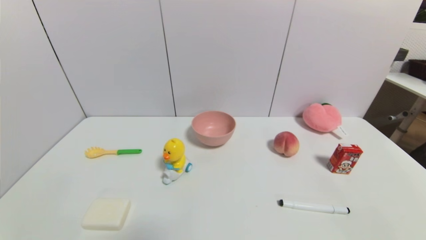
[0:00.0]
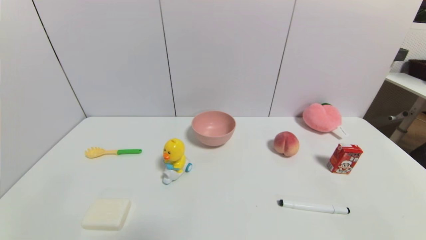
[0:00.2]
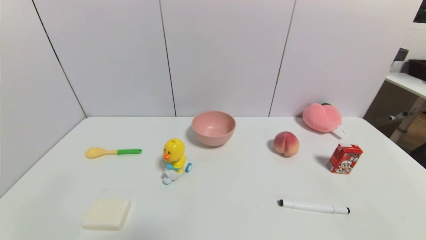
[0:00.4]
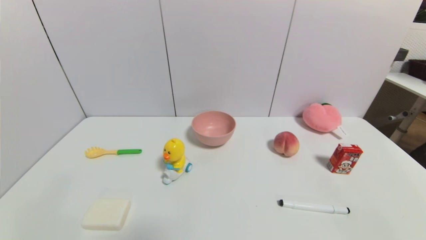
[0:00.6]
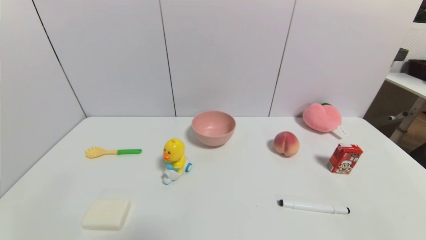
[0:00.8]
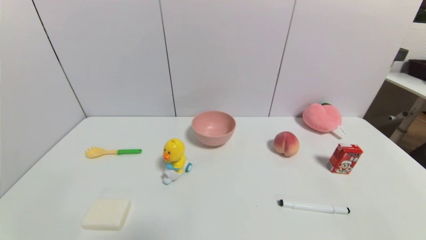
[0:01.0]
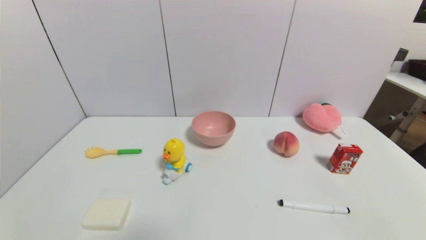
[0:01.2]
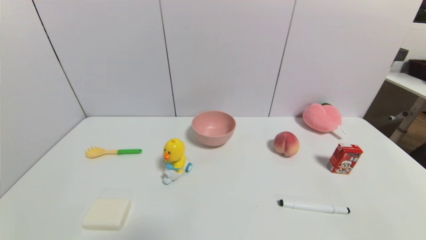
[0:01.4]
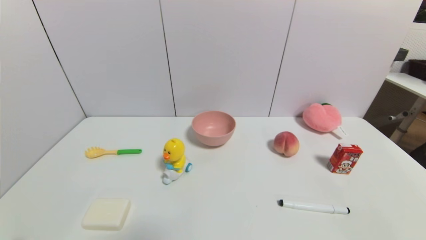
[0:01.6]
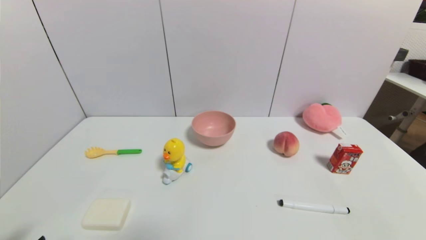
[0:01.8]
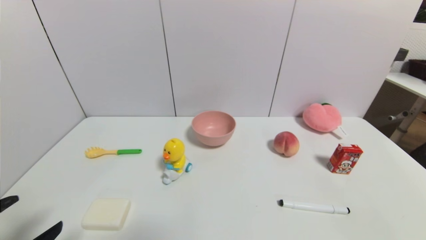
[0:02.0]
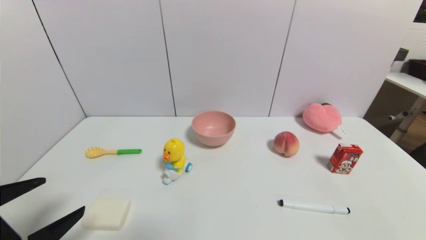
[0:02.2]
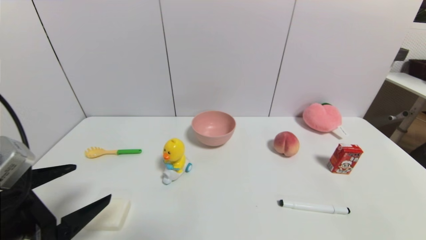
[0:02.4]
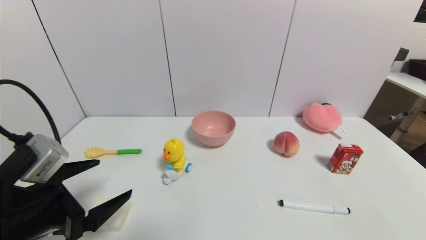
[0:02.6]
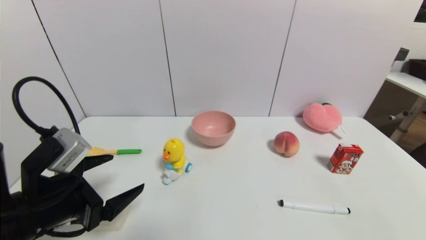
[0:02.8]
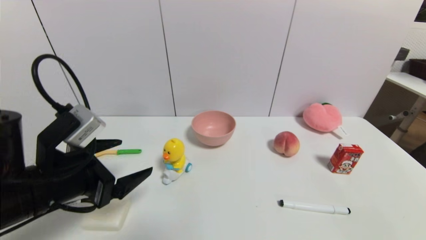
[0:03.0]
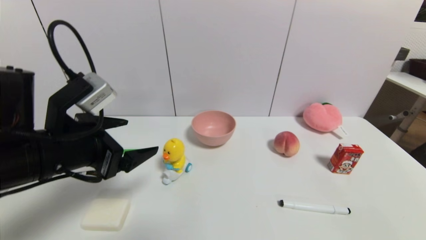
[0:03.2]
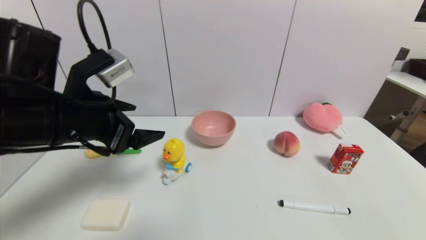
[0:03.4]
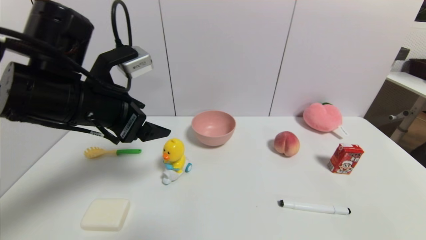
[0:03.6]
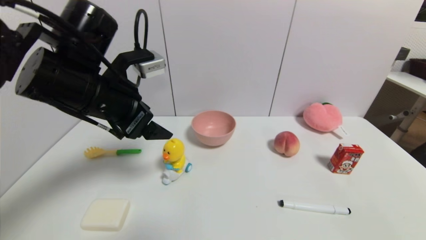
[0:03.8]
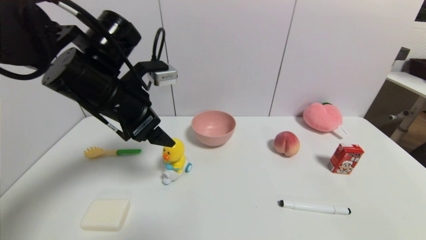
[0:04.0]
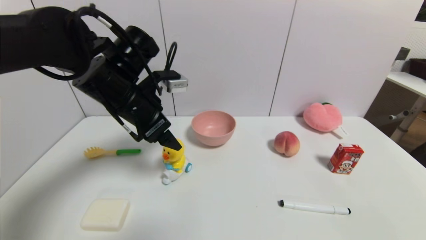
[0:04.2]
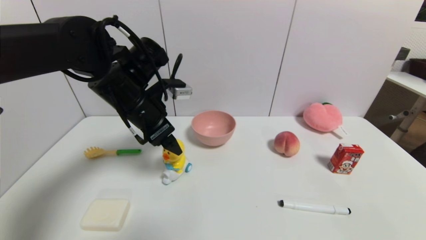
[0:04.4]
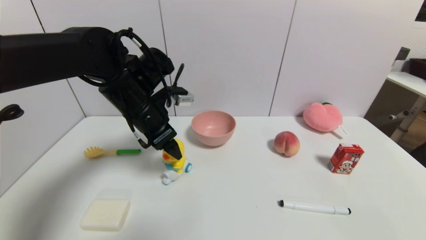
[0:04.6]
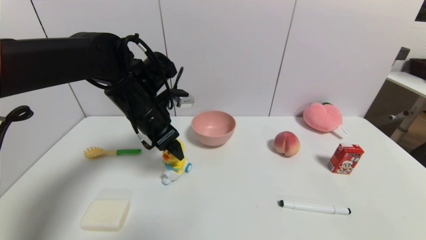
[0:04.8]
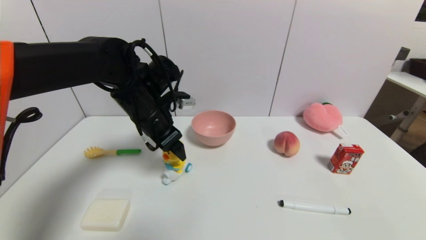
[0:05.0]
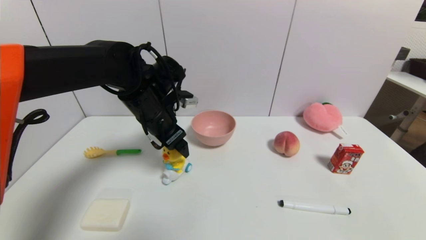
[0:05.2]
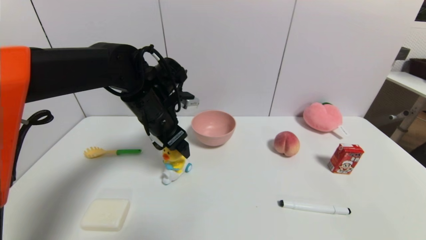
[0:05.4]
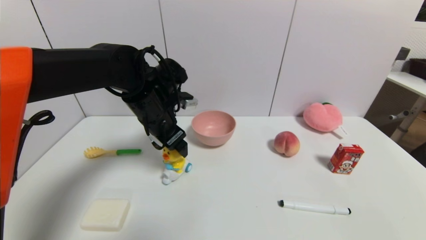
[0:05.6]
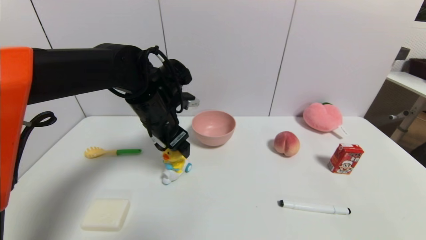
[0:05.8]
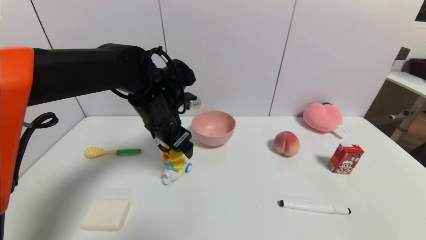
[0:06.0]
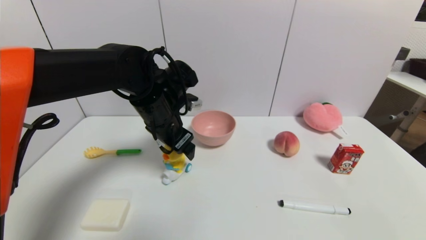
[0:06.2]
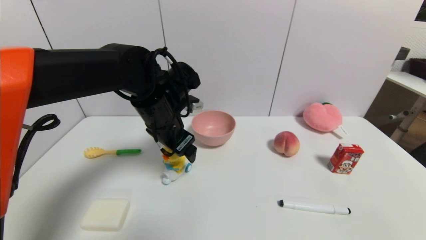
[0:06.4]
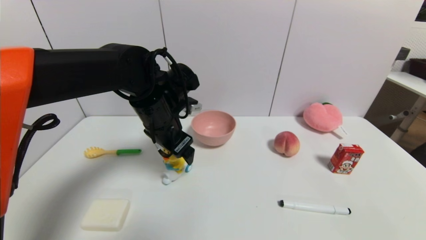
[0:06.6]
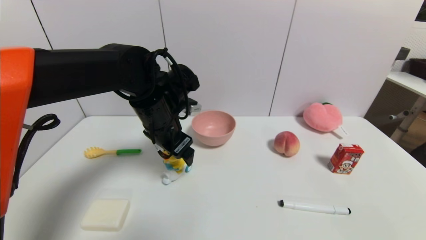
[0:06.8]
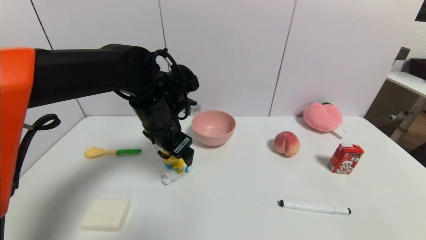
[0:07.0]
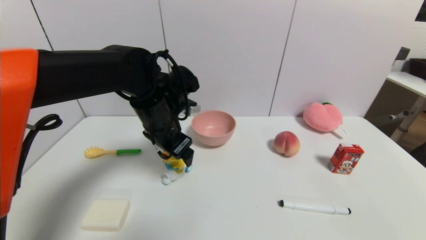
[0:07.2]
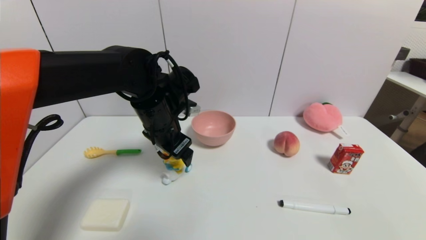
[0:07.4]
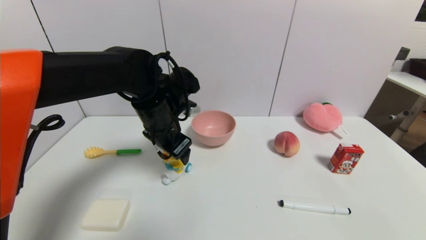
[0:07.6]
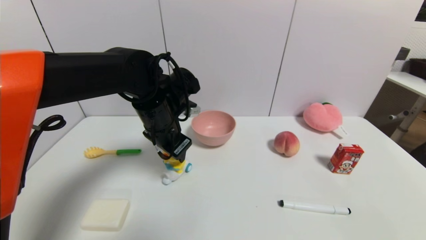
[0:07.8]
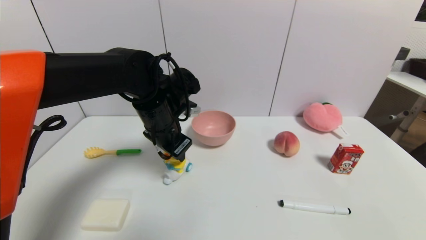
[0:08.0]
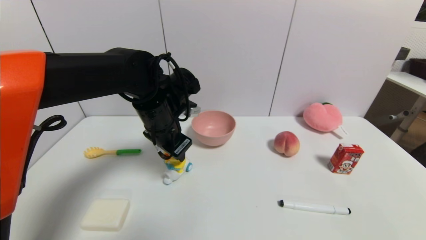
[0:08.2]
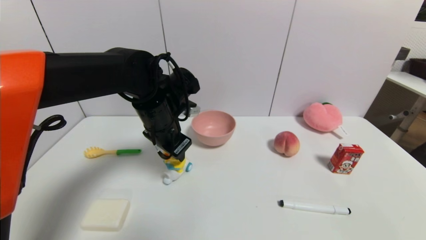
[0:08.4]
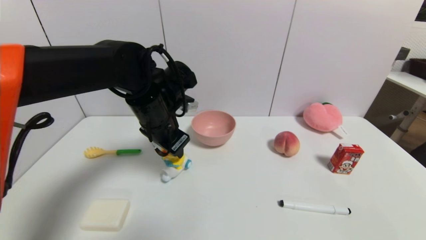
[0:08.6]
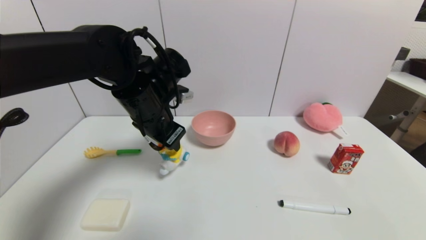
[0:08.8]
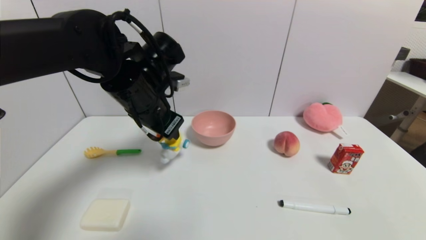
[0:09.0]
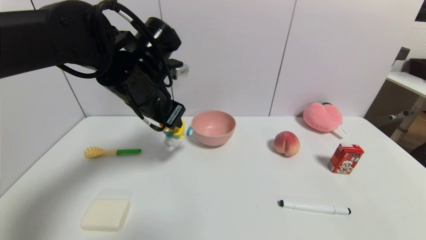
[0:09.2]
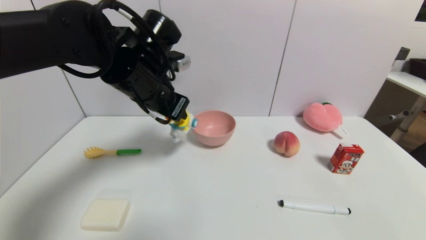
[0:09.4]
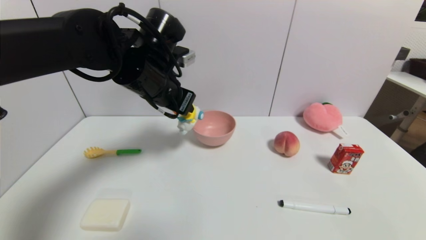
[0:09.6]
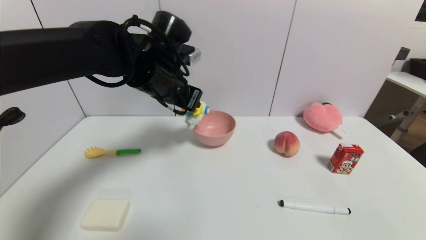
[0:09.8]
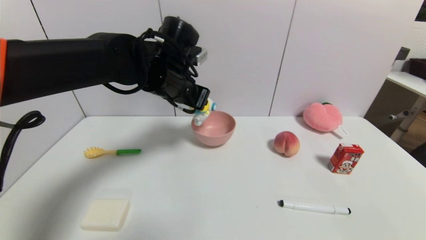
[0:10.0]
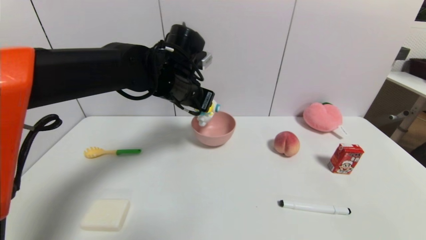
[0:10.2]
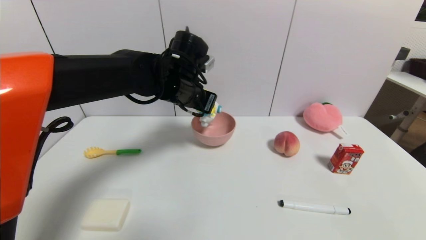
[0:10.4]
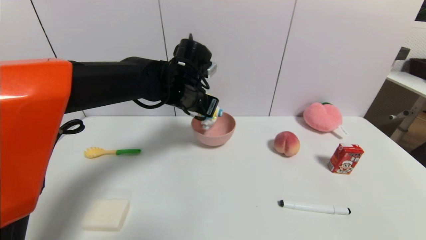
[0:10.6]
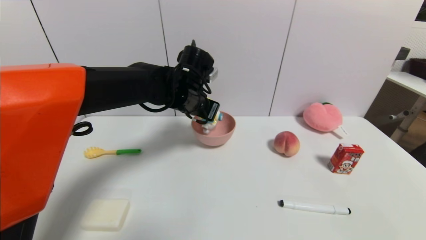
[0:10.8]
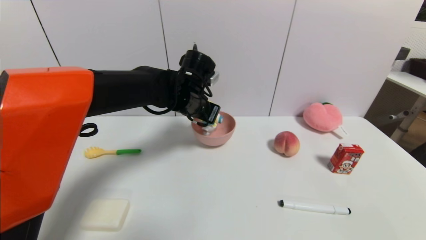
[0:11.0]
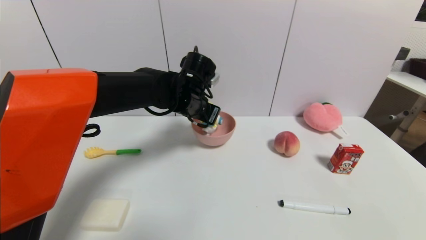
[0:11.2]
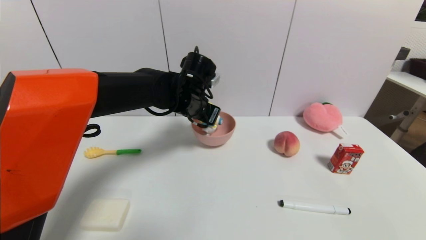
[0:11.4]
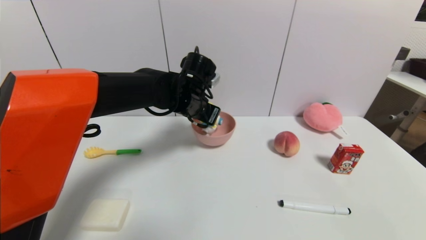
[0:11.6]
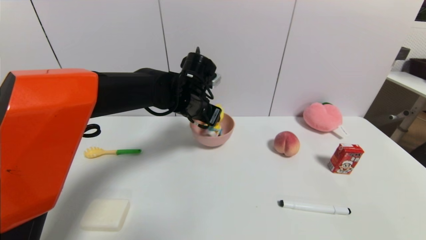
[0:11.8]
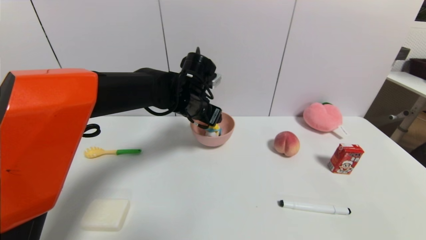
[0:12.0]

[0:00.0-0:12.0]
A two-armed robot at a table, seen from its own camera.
Task of the whole recording: use a gripper to pick the target object and place on the pink bowl.
Step, 0:00.0 to 0:08.4: Grasp the duck toy with the left gripper.
0:01.6 to 0:03.0: The left gripper shifts some 20 cm forward, upward and to the right.
0:03.0 to 0:04.4: The left gripper moves forward, to the right and upward, some 20 cm.
0:04.4 to 0:06.0: The left gripper moves about 5 cm.
0:06.0 to 0:07.6: The left gripper closes its fingers.
0:07.6 to 0:09.0: The left gripper goes about 5 cm upward, and closes up.
0:09.0 to 0:10.4: The left gripper moves forward and to the right, roughly 10 cm.
0:10.4 to 0:12.0: The left gripper opens up.

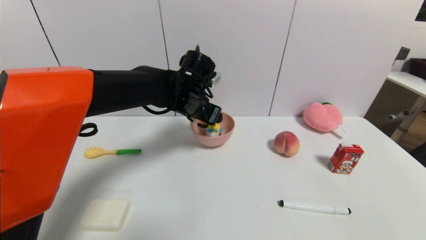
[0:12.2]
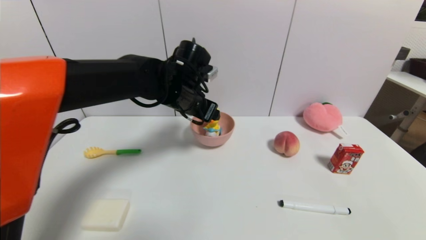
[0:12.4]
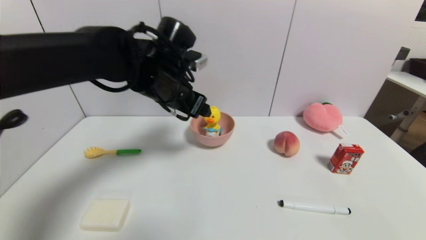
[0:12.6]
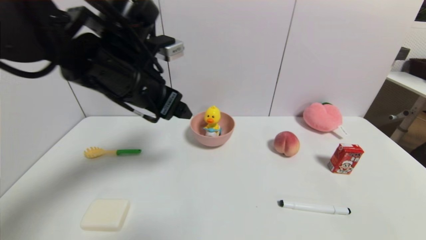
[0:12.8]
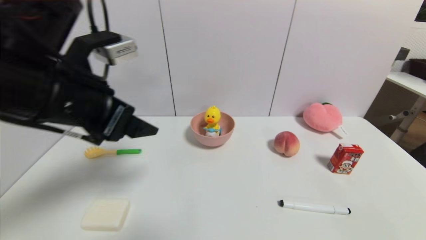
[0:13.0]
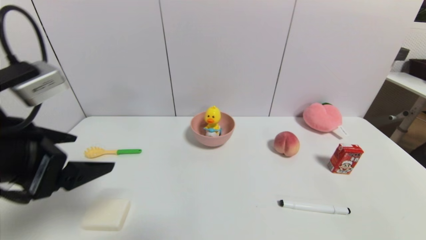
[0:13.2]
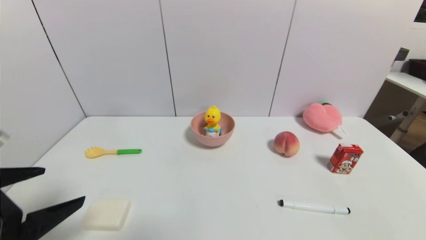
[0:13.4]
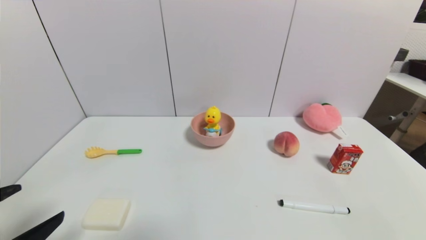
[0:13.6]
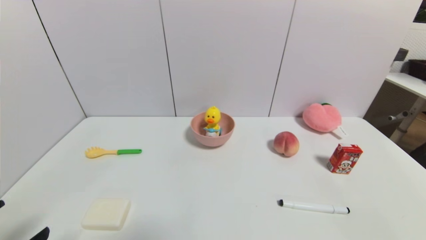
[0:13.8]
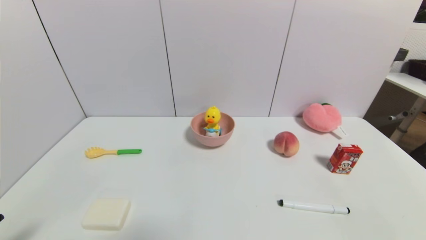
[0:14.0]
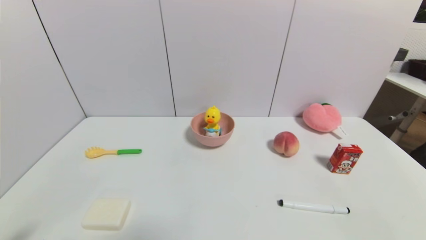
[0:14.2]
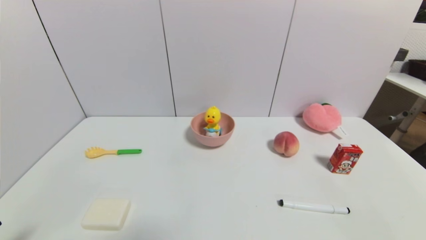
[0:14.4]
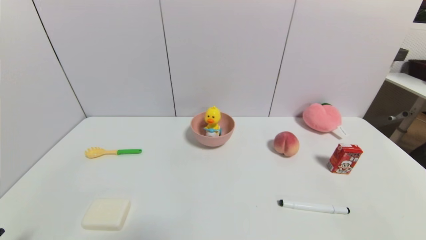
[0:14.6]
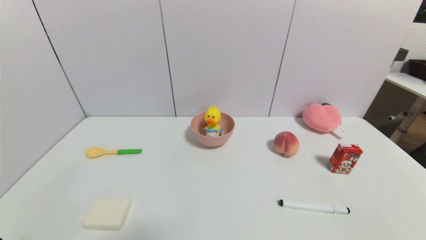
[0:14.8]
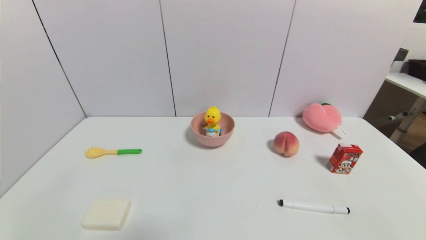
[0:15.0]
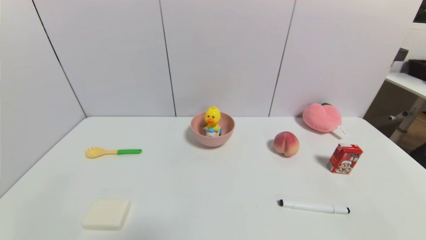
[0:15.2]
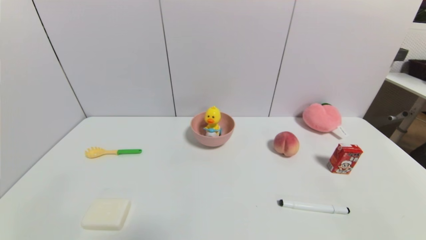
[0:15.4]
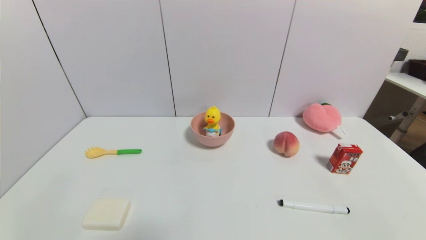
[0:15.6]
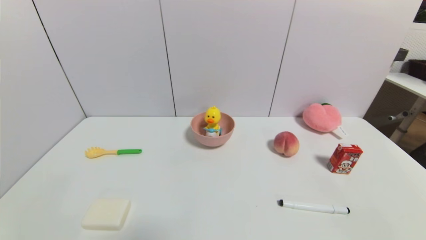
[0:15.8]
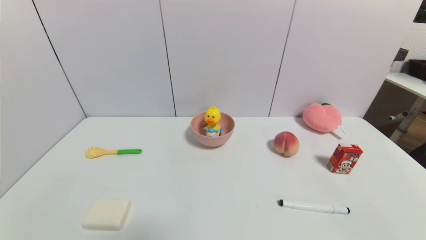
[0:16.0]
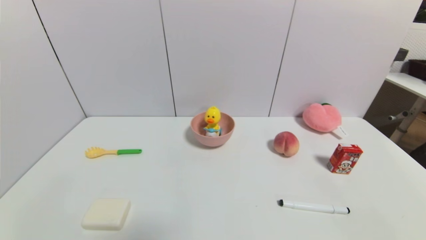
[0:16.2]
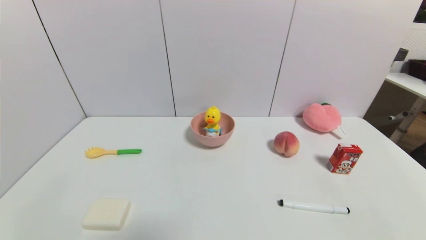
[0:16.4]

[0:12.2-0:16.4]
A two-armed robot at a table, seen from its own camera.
Task of the whole recording: use a gripper to pick the target object and place on the pink bowl.
0:12.2 to 0:13.6: The left gripper travels backward and to the left by approximately 40 cm.
0:13.6 to 0:15.0: The left gripper moves downward and backward, approximately 15 cm.
